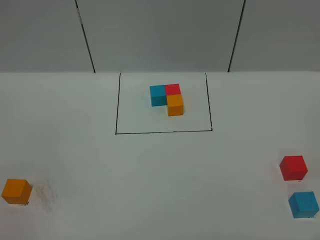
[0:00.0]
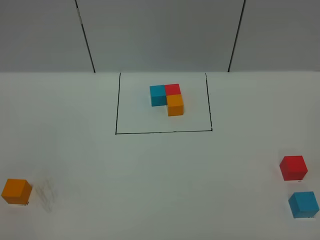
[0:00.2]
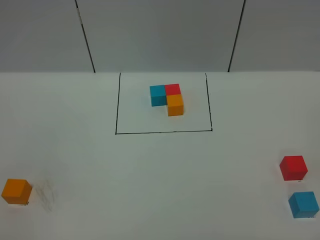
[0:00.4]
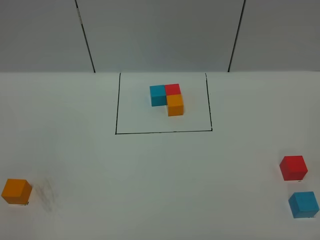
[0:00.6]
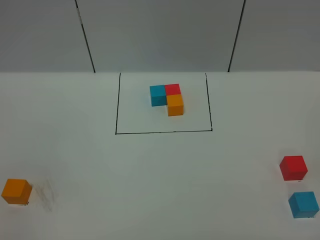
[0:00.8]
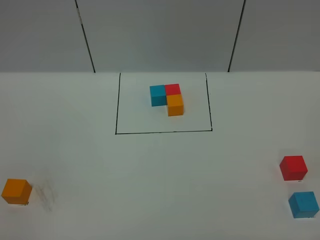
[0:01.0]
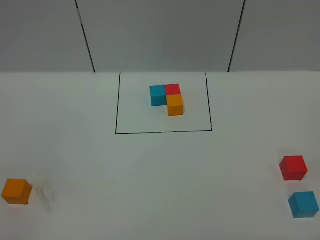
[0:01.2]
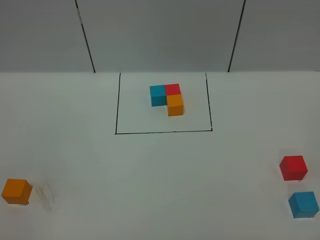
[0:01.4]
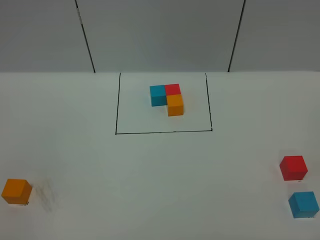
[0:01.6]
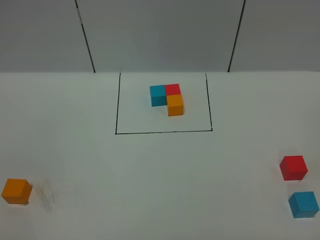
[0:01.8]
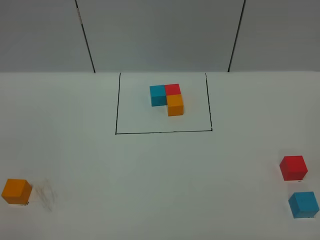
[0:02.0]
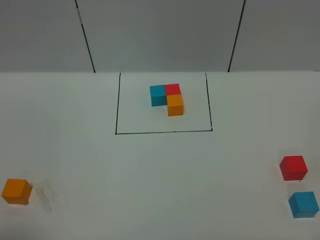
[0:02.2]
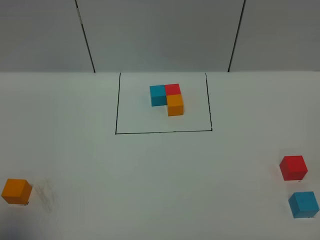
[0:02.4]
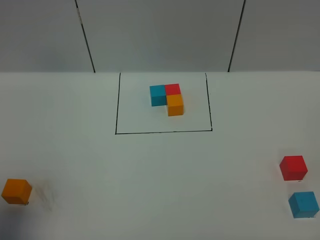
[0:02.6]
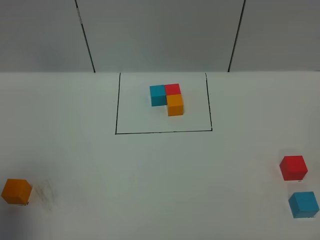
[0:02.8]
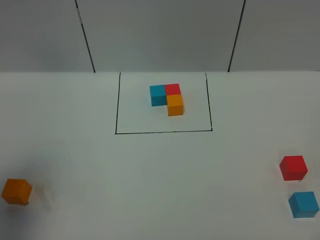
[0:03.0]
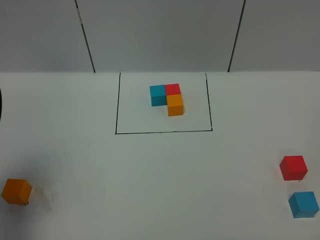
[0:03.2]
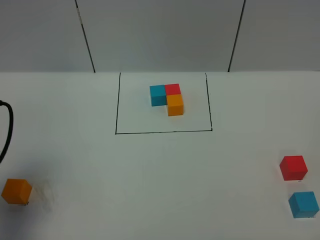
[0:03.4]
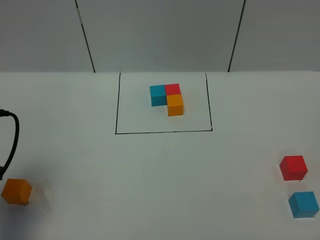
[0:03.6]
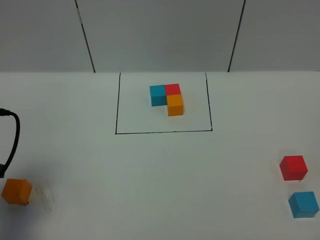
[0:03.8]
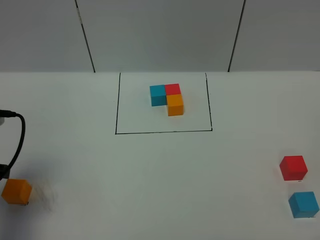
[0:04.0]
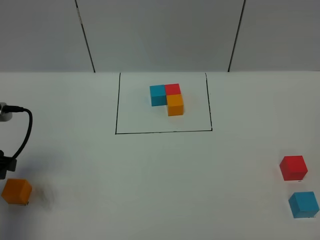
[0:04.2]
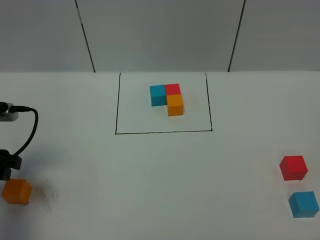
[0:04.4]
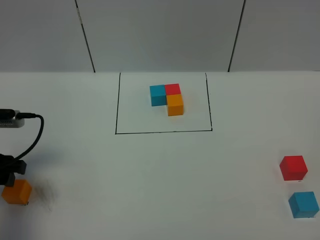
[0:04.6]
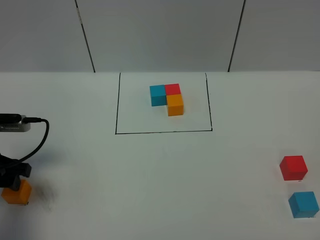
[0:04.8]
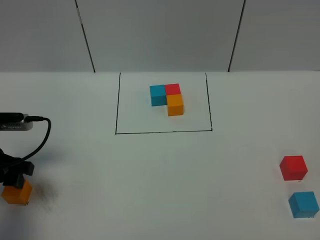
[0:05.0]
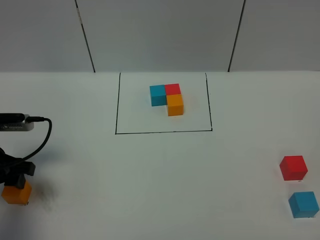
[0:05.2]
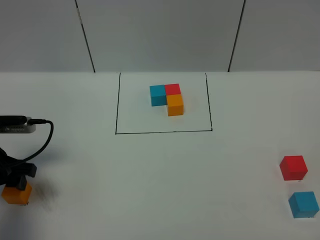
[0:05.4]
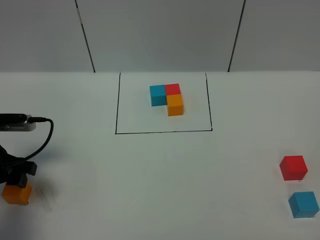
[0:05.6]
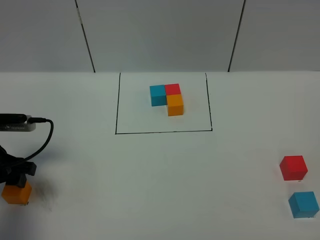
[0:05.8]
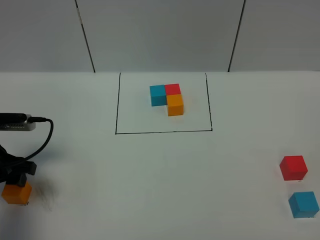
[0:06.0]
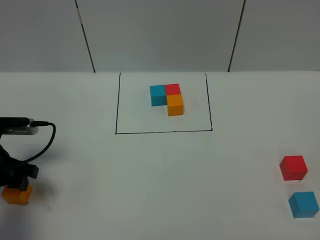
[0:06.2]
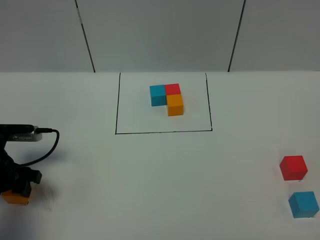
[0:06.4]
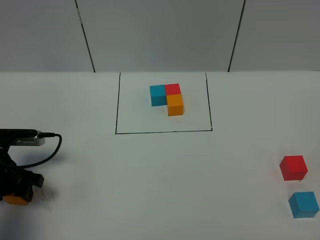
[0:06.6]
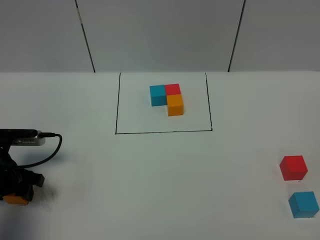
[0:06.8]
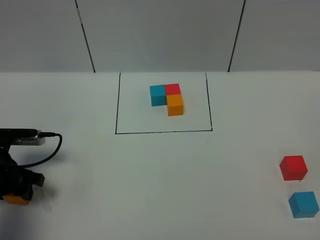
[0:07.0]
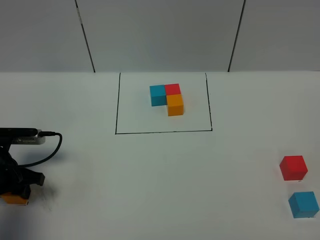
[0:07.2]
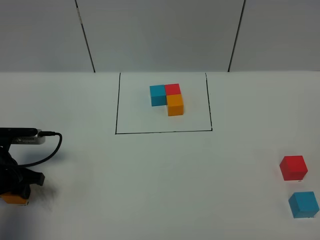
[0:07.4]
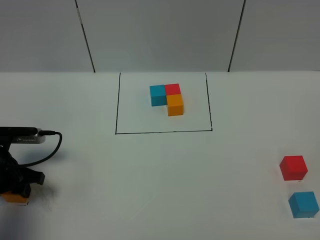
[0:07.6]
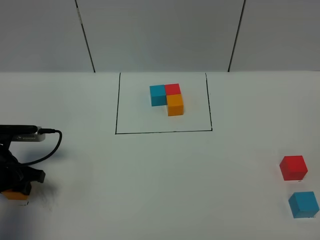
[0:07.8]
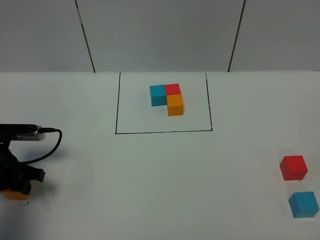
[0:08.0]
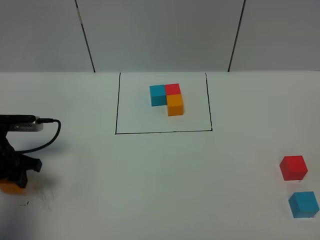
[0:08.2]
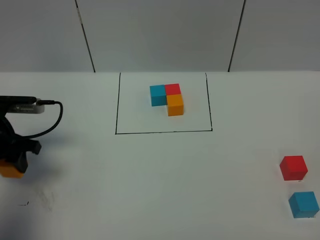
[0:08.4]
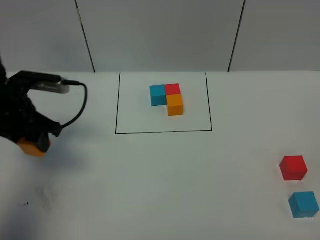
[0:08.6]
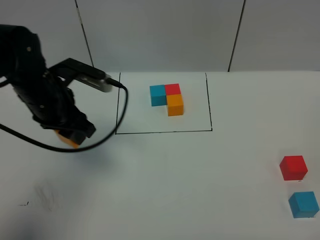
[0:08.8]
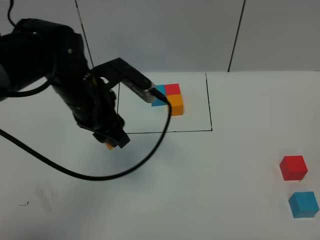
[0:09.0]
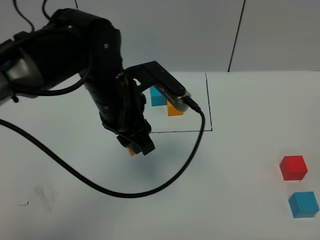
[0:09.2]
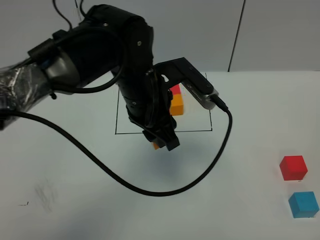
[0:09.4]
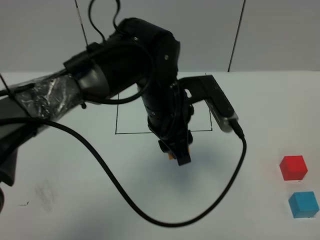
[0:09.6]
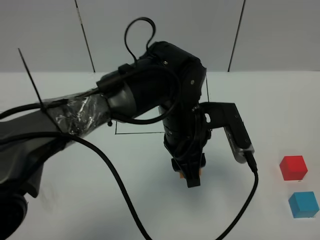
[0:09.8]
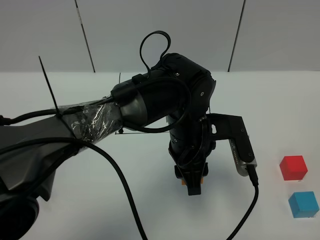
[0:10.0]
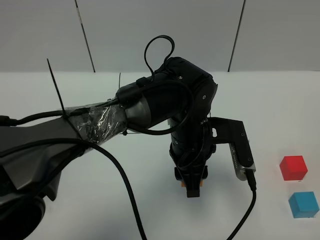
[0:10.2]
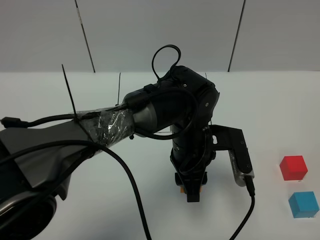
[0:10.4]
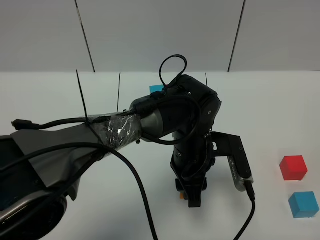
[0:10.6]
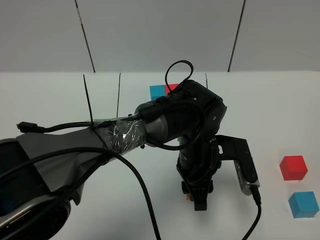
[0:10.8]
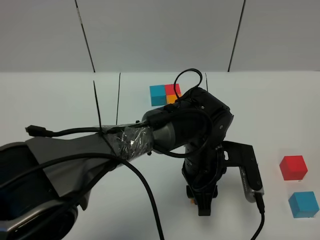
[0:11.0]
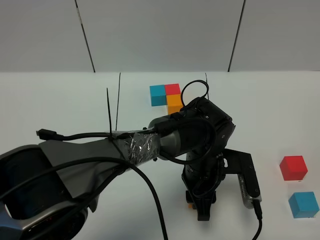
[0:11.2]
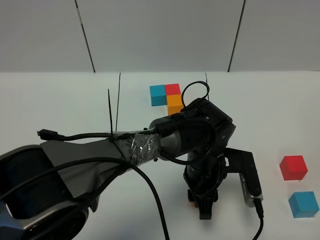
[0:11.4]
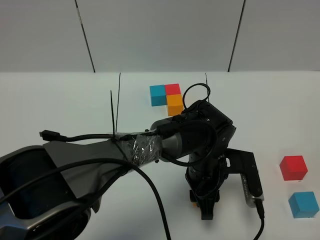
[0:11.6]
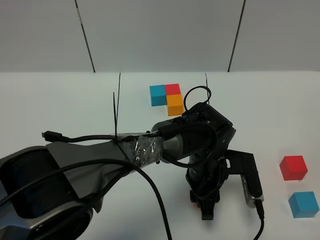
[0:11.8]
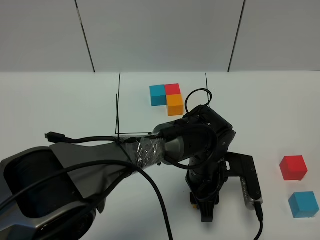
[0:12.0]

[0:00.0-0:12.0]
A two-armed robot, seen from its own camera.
Task of the whole recording: According to the building block template in front, assemble the scattered blocks together.
0:00.0 to 0:01.6: The two grippers keep their place.
0:01.6 to 0:03.0: The left gripper heads forward, covering some 20 cm.
0:03.0 to 0:04.4: The left gripper travels downward and forward by some 15 cm.
0:04.4 to 0:06.0: The left gripper ends up roughly 5 cm from where it was.
0:06.0 to 0:07.6: The left gripper closes its fingers.
0:07.6 to 0:09.0: The left gripper moves to the right and upward, about 25 cm.
0:09.0 to 0:10.4: The left gripper heads to the right and downward, covering approximately 20 cm.
0:10.4 to 0:12.0: The left gripper heads downward, covering some 5 cm.

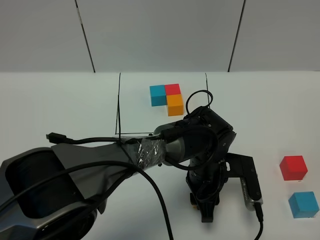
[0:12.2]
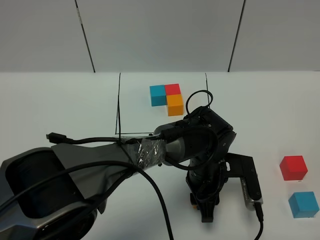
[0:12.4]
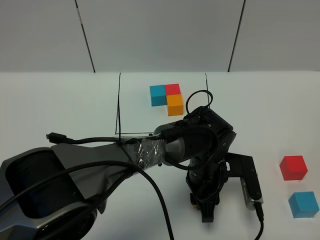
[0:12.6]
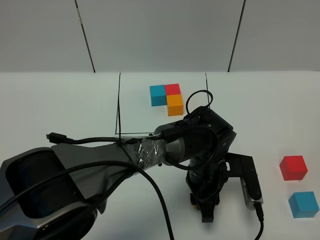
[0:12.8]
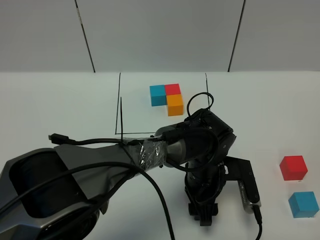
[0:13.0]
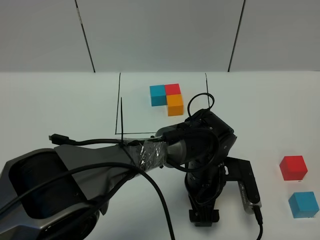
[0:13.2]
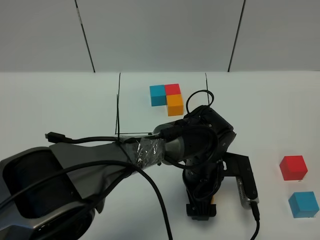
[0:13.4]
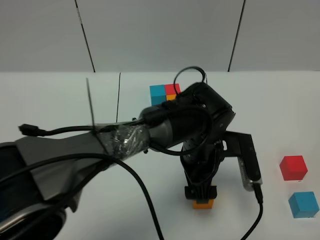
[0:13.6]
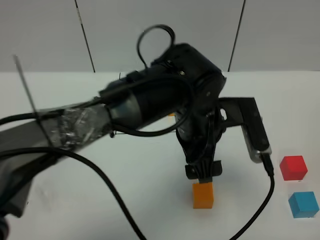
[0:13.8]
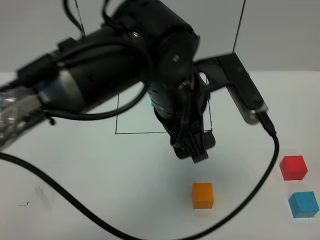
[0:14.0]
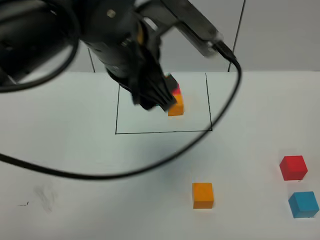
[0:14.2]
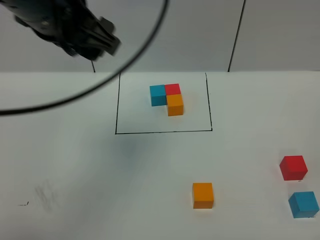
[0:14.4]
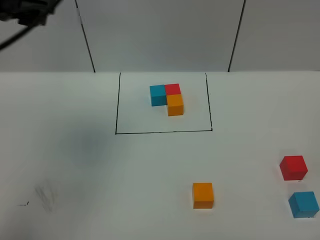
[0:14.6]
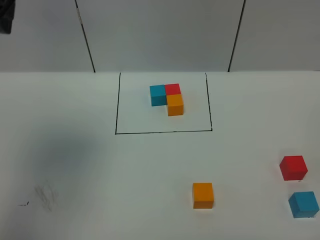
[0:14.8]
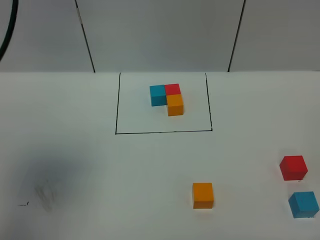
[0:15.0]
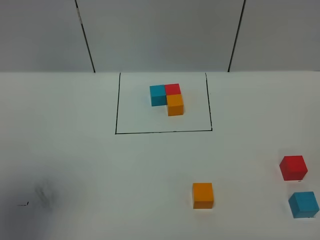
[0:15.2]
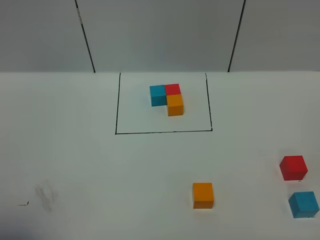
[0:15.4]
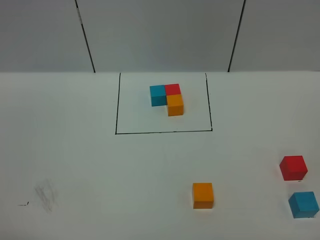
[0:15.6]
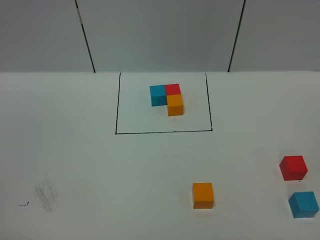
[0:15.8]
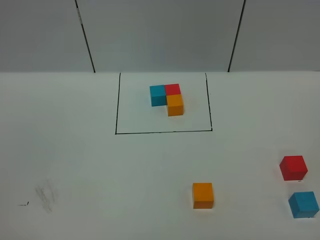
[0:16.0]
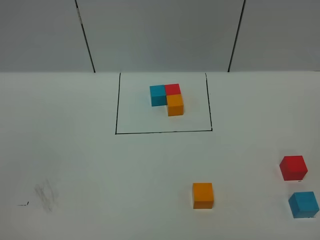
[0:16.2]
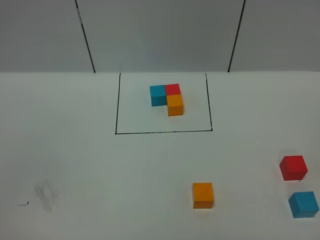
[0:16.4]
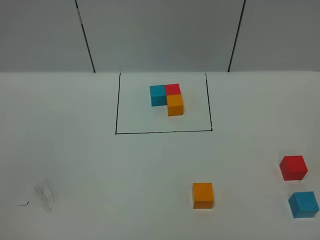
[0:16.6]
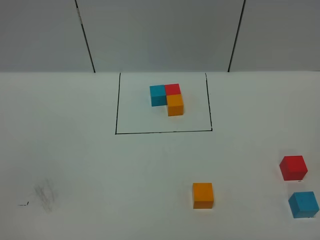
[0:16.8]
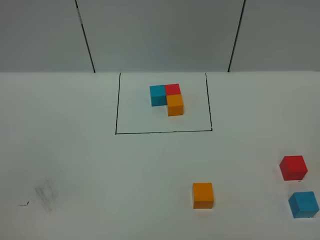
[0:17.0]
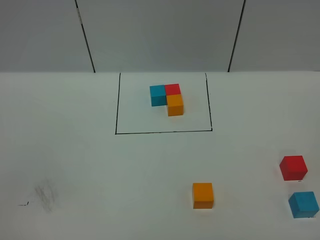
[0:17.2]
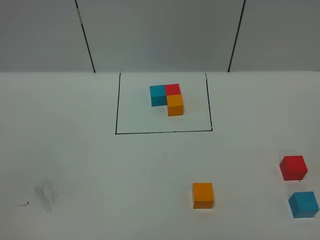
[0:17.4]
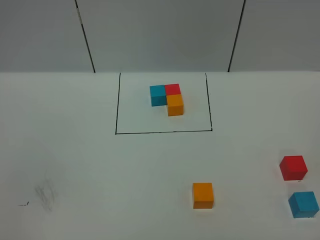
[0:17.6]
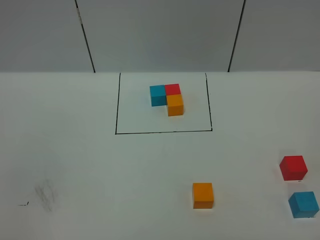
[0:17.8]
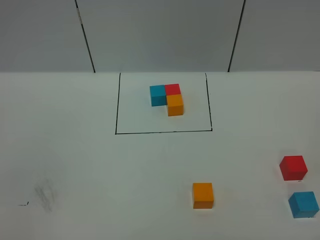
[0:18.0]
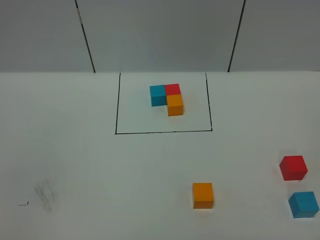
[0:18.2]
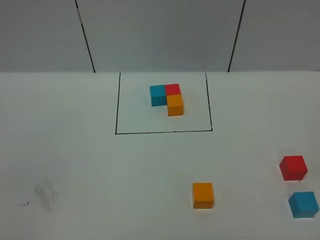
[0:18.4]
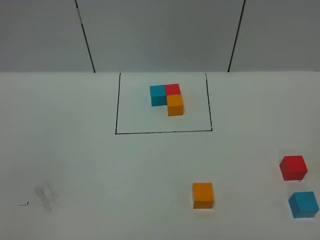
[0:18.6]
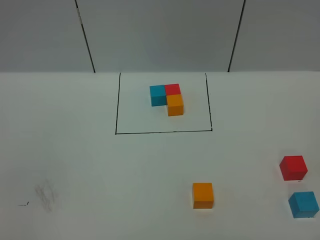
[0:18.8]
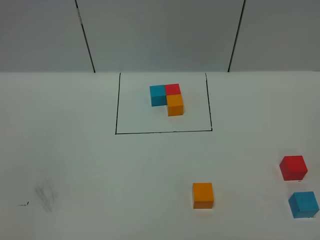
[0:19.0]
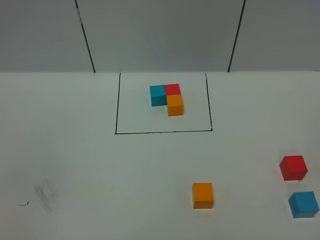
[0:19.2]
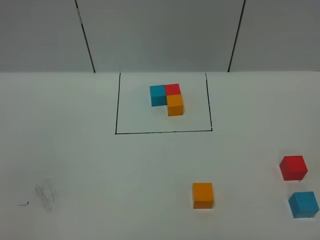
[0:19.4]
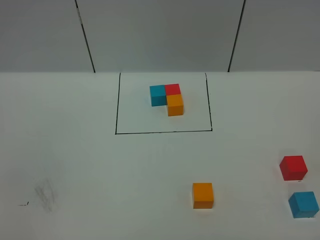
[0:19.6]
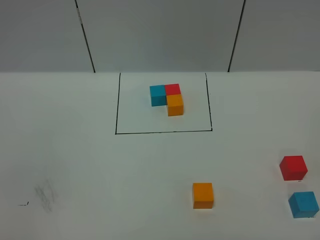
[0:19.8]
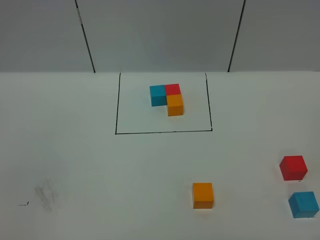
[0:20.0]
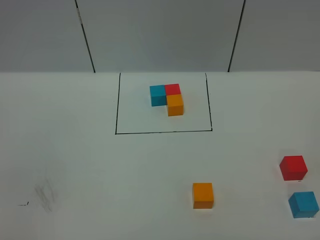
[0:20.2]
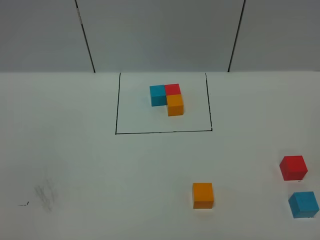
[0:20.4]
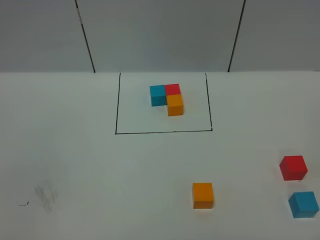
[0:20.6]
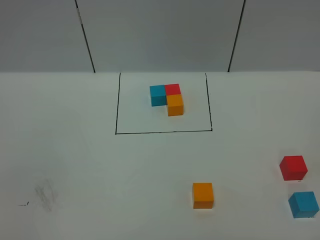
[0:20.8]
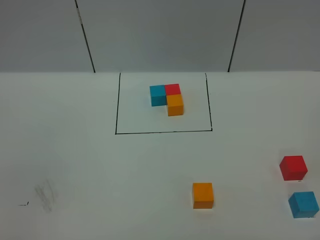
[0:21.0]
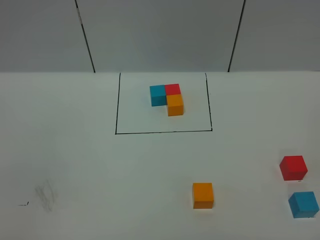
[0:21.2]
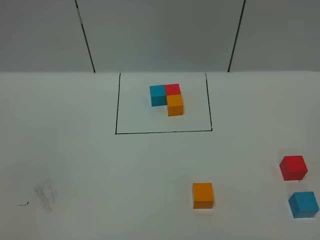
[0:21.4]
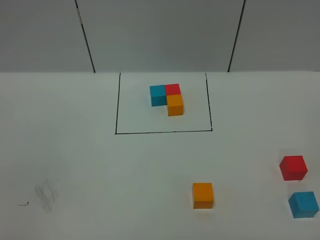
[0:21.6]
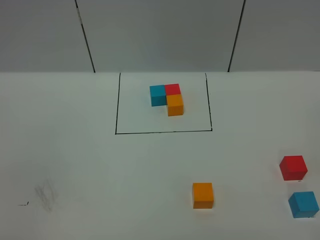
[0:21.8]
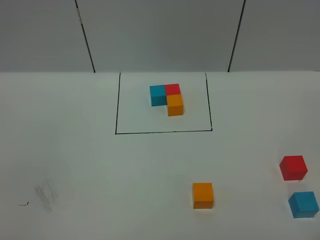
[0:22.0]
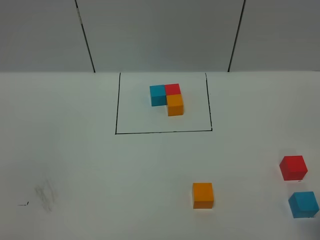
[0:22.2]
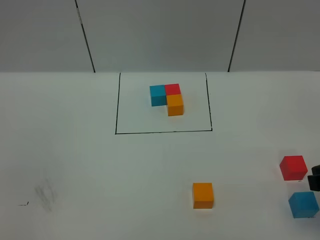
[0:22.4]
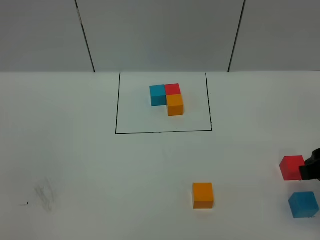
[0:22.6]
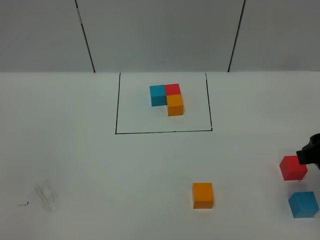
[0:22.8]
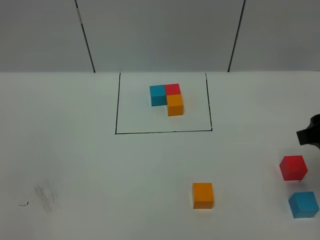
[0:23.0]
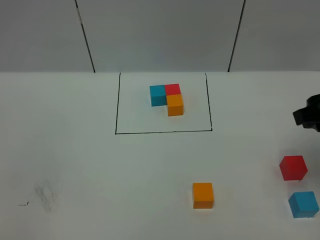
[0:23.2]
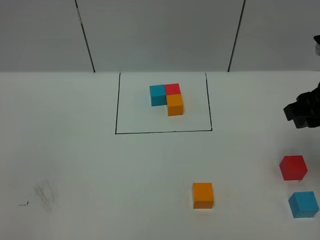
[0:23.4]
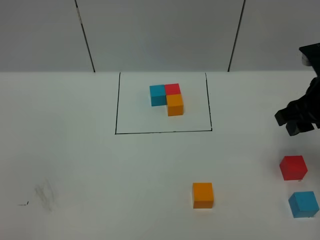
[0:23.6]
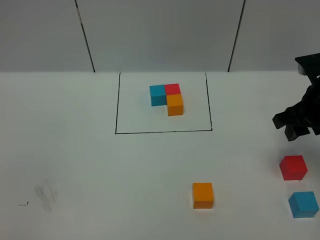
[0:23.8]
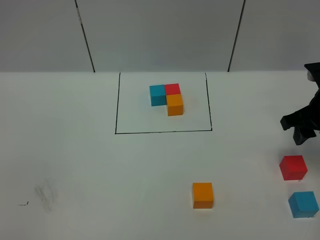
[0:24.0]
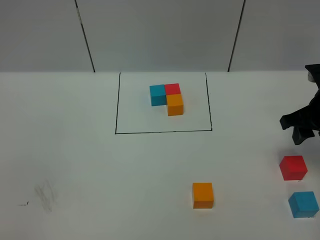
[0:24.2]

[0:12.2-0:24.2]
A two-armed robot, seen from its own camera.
Task of the whole recording: According to the building block template in front, assemble the scattered blocks together.
0:12.2 to 0:13.8: The left gripper heads upward, covering some 15 cm, and opens its fingers.
0:13.8 to 0:15.2: The left gripper heads to the left and upward, covering some 35 cm.
0:15.2 to 0:16.6: The left gripper moves backward and downward, some 20 cm.
0:18.2 to 0:21.2: The two grippers keep their place.
0:21.2 to 0:22.6: The right gripper shifts roughly 20 cm forward.
0:22.6 to 0:24.2: The right gripper goes roughly 15 cm forward.
